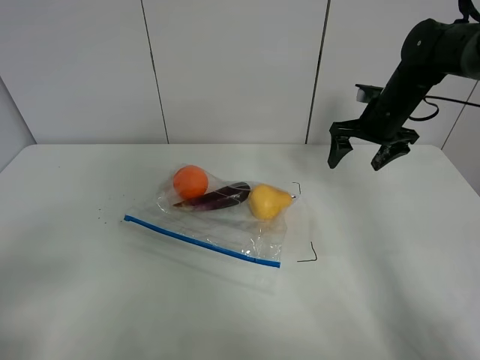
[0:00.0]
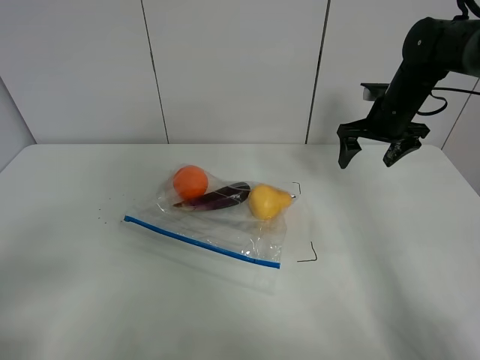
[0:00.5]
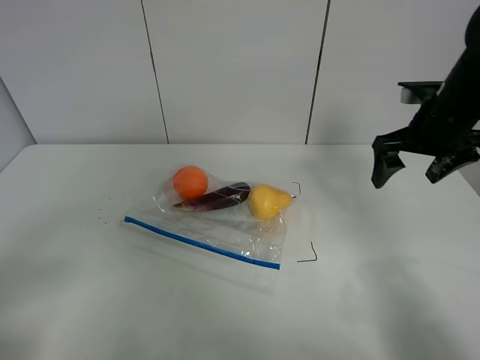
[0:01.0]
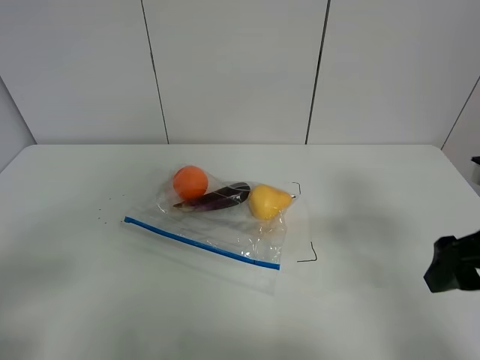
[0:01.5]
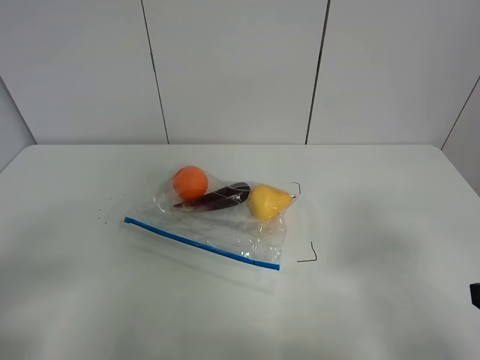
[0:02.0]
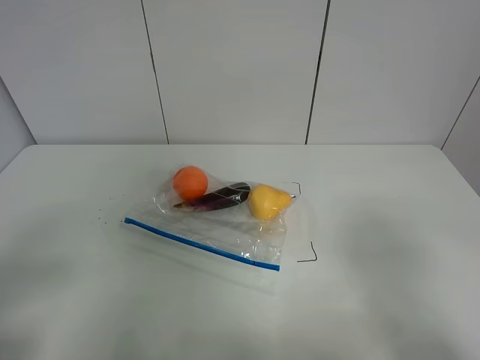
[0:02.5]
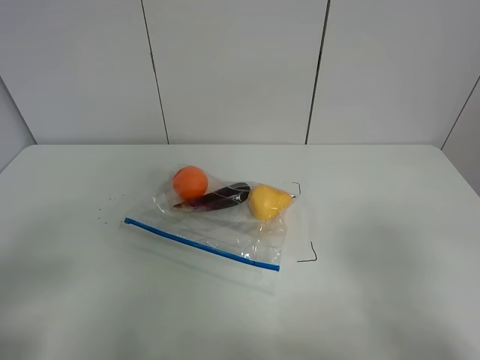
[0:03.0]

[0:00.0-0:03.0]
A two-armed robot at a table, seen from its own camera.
0:00.0 to 0:01.5: The right gripper travels backward by approximately 30 cm.
0:01.5 to 0:03.0: The right gripper is displaced backward by some 15 cm.

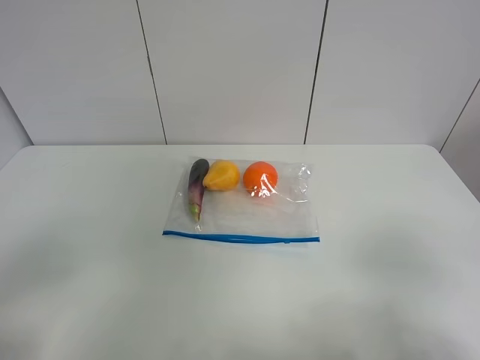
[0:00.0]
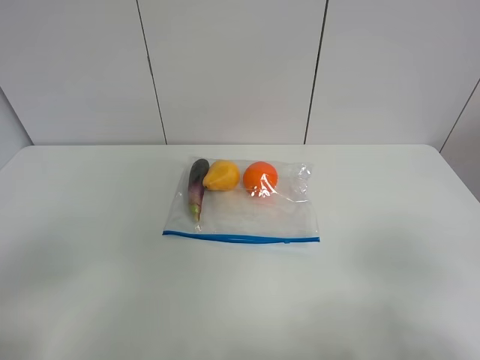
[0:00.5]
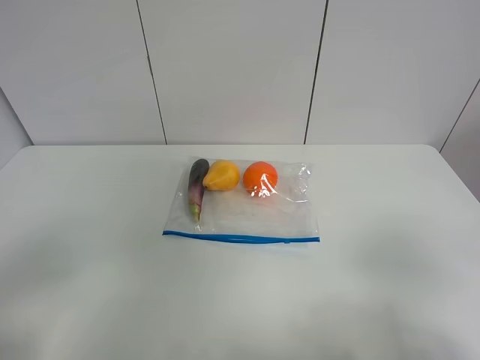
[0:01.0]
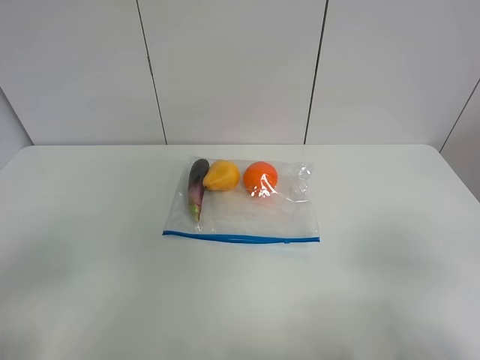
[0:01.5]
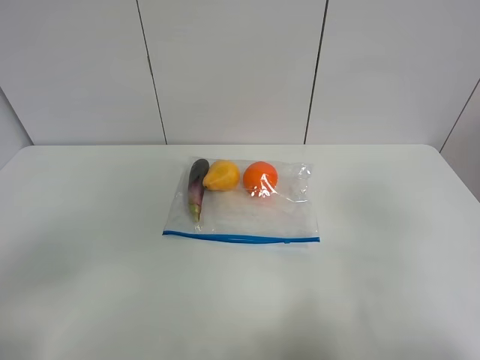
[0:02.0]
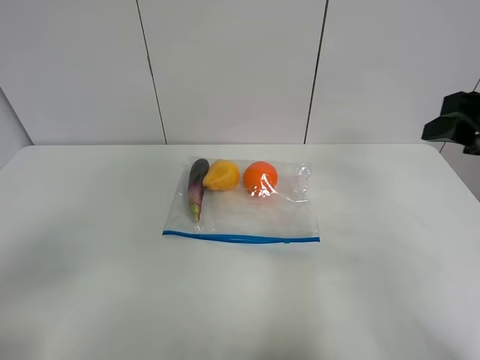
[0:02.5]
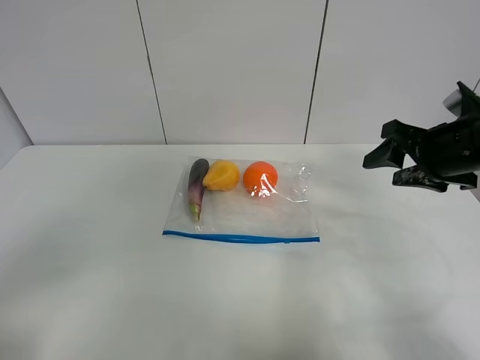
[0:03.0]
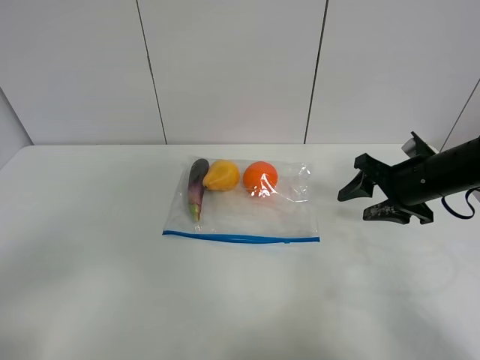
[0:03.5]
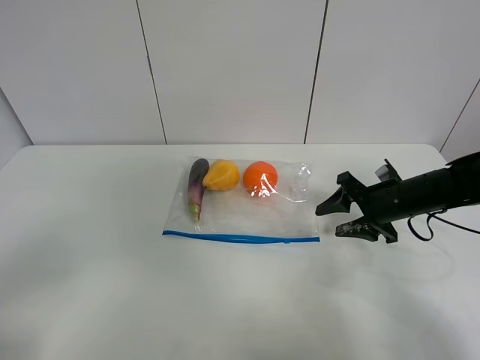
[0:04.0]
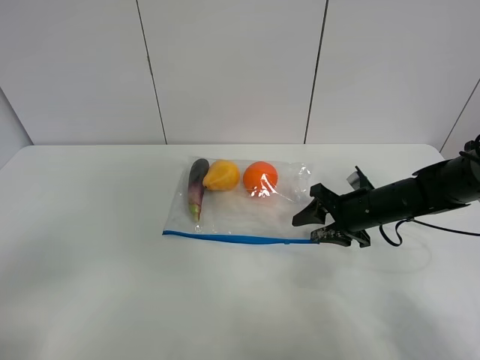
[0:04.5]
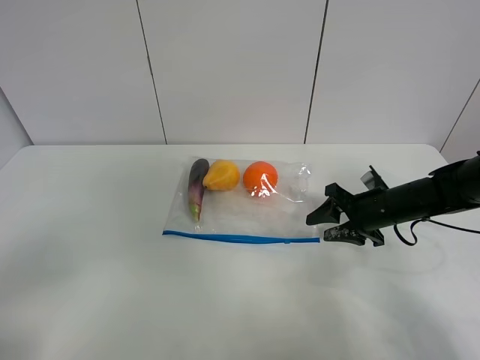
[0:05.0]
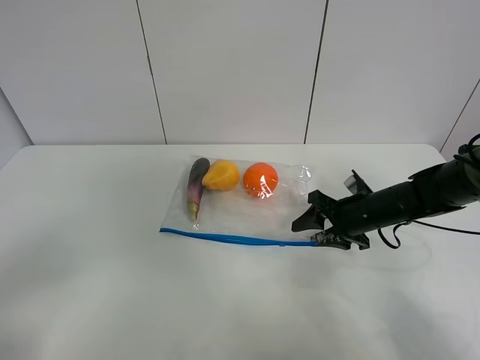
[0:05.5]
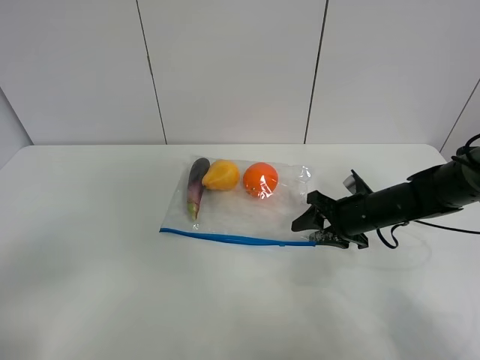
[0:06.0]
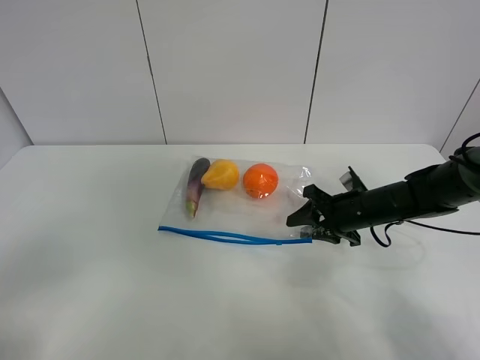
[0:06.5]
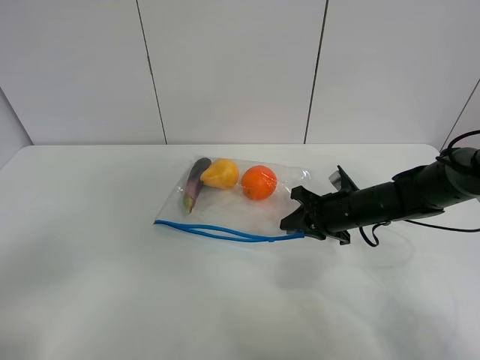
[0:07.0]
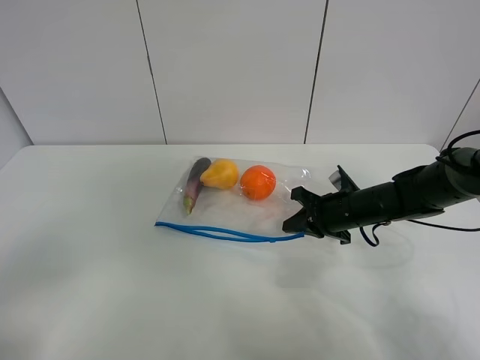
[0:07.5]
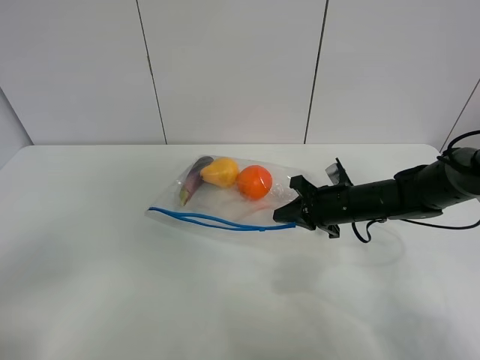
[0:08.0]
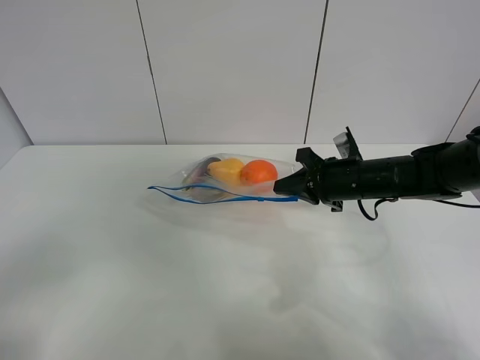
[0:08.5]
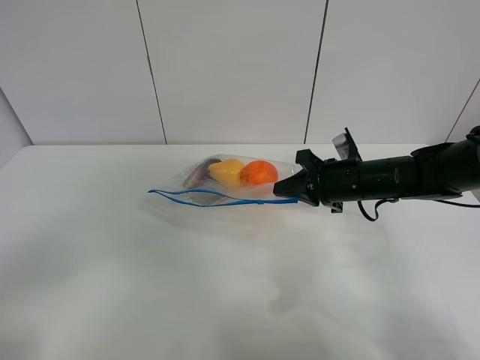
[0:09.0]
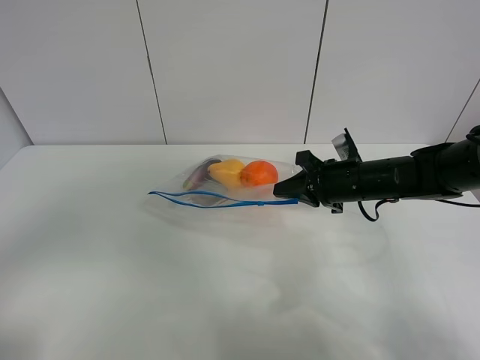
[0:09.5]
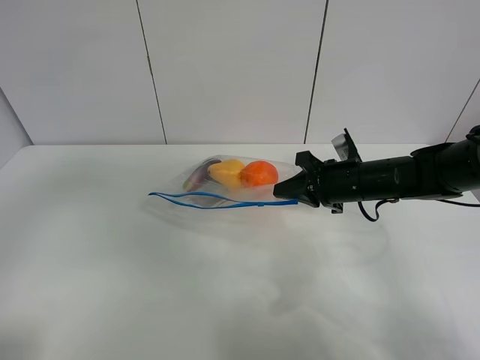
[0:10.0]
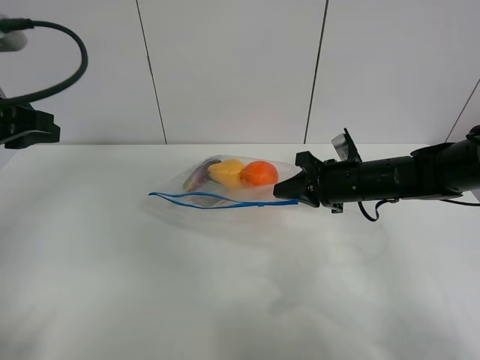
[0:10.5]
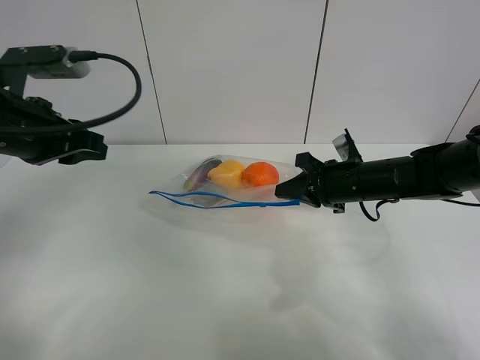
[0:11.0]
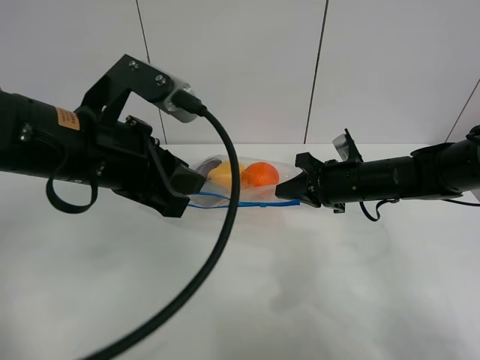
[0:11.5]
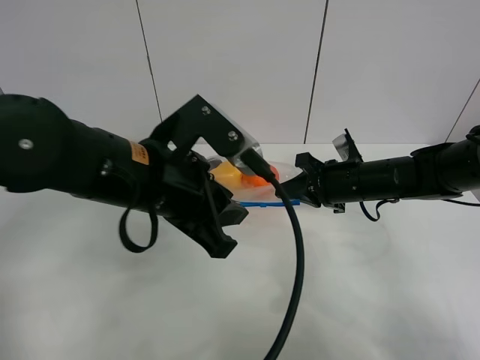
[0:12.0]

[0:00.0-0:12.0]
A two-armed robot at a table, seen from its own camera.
Step, 0:00.0 to 0:07.0: Grasp the fruit bag with right gripper.
Step, 0:07.5 to 0:08.5: Lift the fruit bag with your right gripper.
0:00.0 to 0:02.0: The right gripper goes roughly 10 cm forward and upward.
0:02.0 to 0:04.0: The right gripper moves forward and downward, about 35 cm.
0:04.0 to 0:06.0: The grippers stay close to where they were, moving slightly.
0:06.0 to 0:08.0: The right gripper closes up.
0:08.0 to 0:10.0: The right gripper is displaced upward by roughly 5 cm; the left gripper goes about 15 cm forward and upward.
0:10.0 to 0:12.0: The left gripper heads to the right, downward and forward, covering some 25 cm.

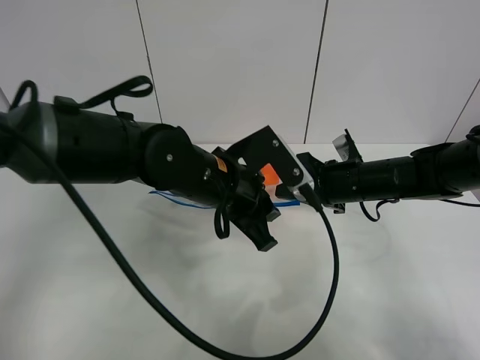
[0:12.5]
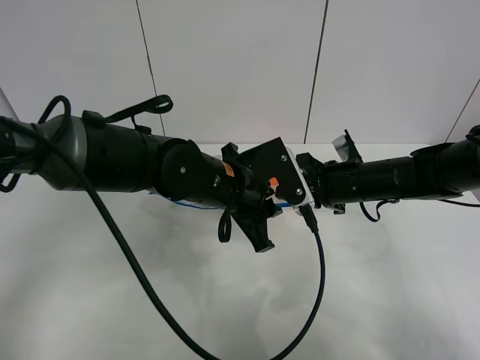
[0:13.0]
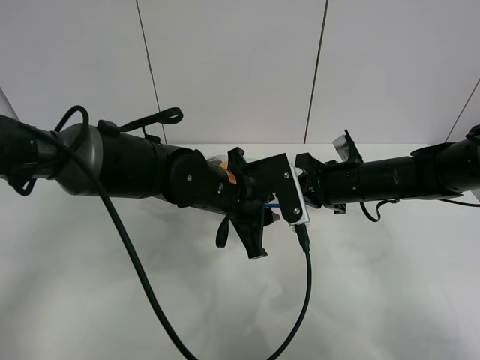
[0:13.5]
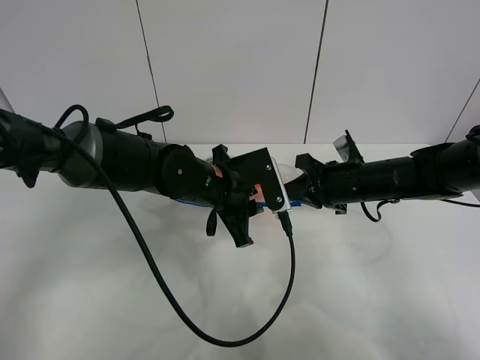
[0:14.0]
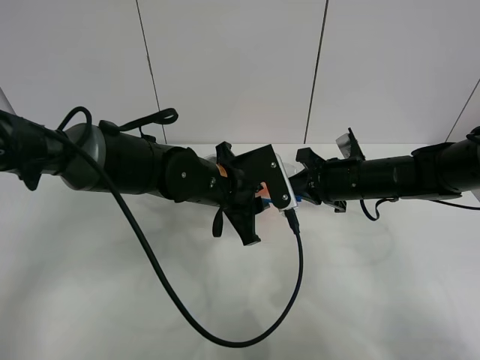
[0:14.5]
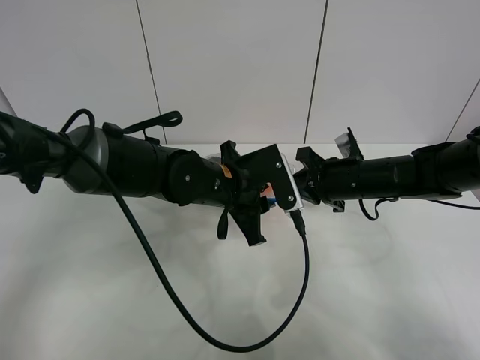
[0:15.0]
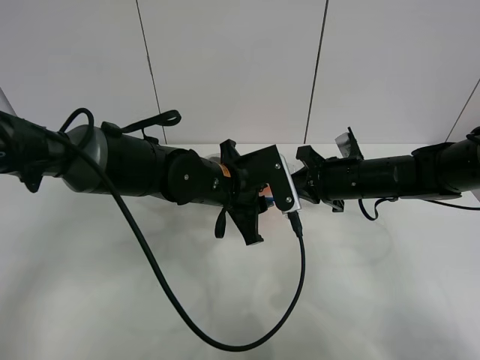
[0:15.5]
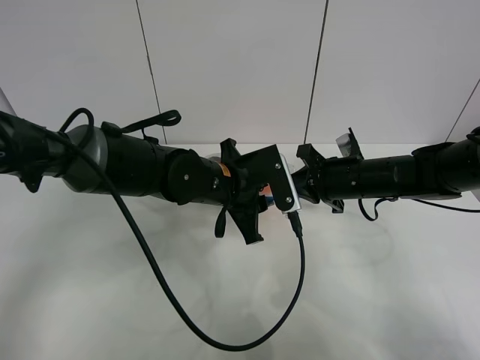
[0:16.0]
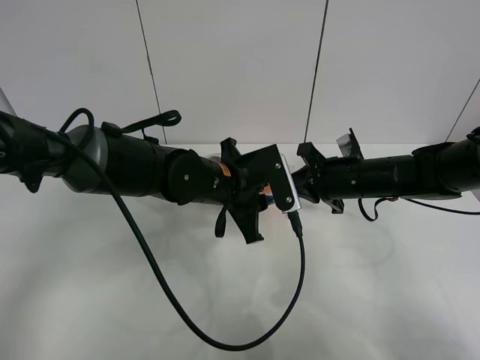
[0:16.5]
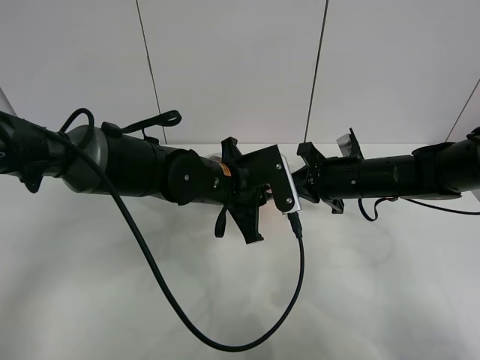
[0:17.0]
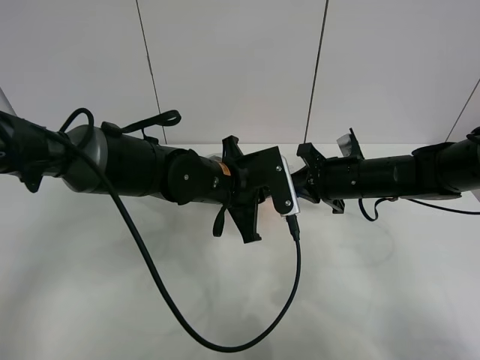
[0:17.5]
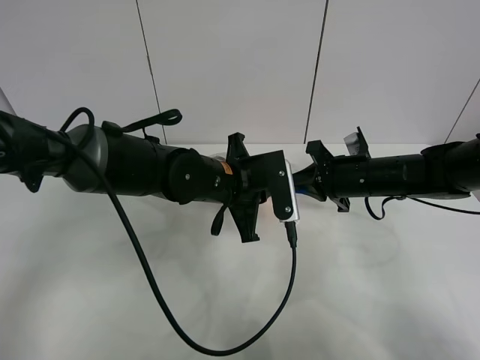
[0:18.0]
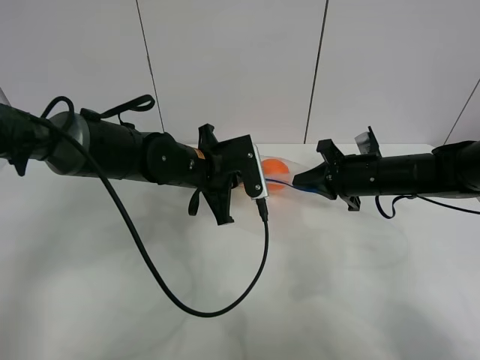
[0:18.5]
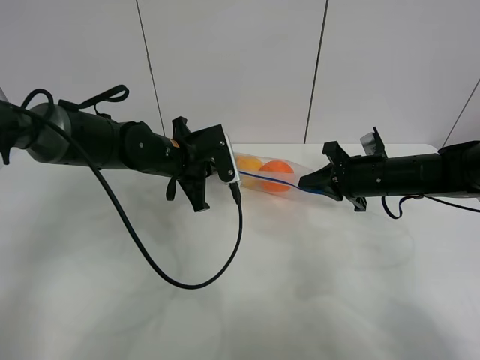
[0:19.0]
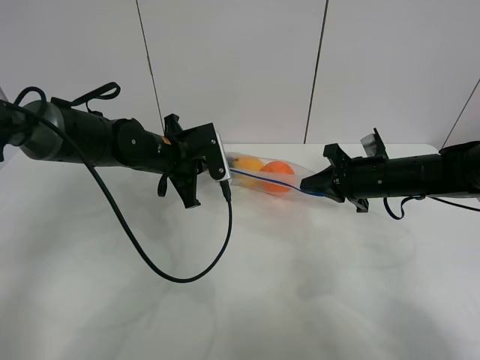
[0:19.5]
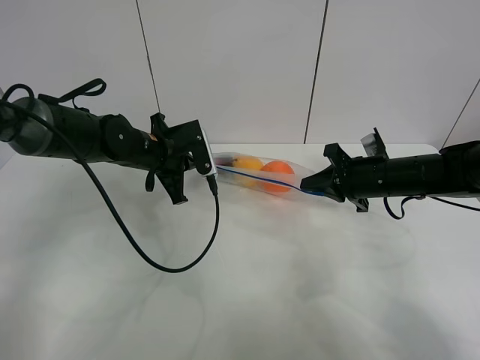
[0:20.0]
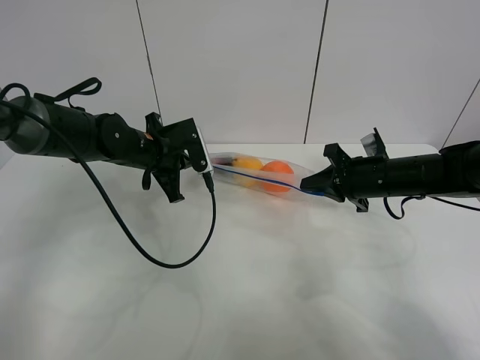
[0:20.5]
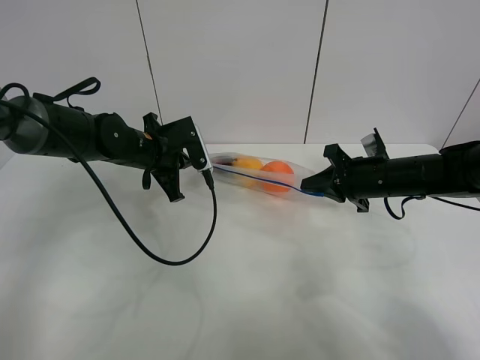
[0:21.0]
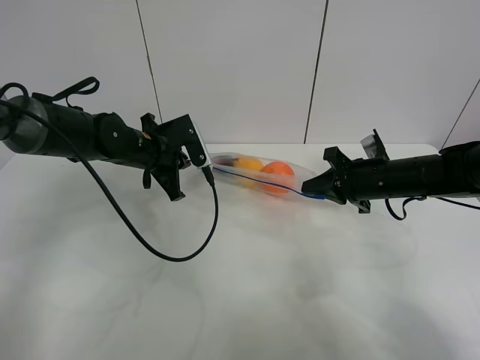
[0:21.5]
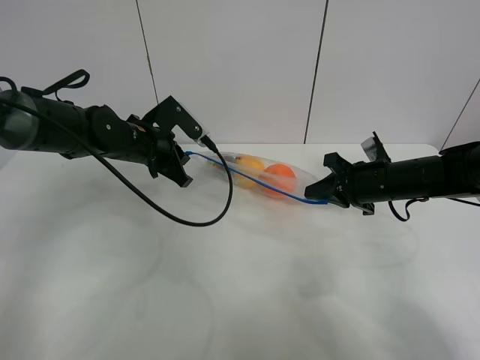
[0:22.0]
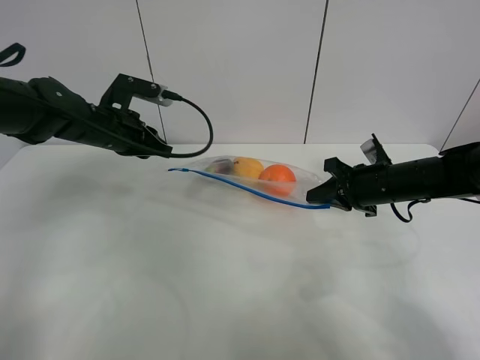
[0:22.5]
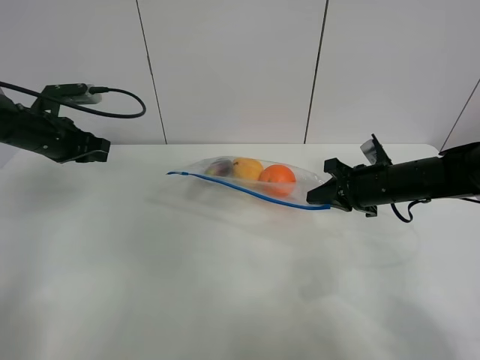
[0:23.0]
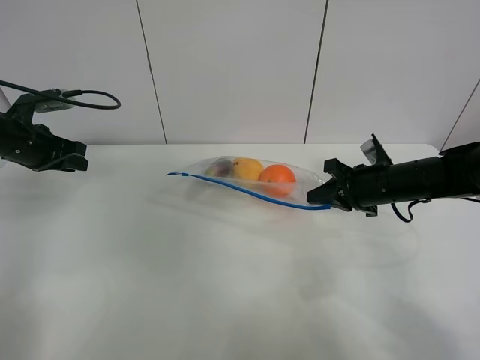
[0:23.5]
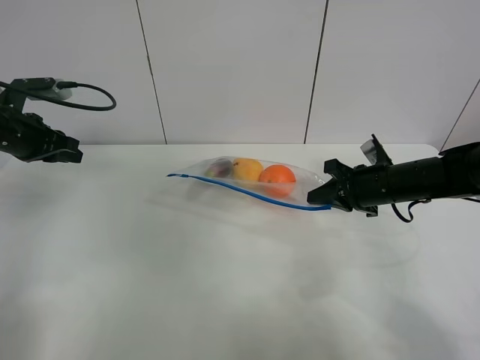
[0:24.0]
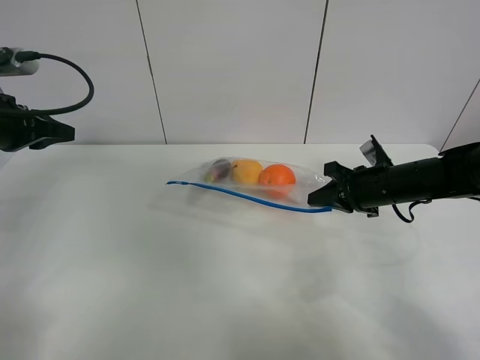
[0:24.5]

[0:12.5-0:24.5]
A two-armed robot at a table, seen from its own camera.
Step, 0:12.5 to 0:22.5: Pull the fruit bag with left gripper.
0:12.5 to 0:14.5: The grippers make only small movements.
0:14.5 to 0:16.5: Both grippers stay put.
0:16.5 to 0:18.5: The left gripper moves approximately 5 cm, and closes.
0:18.5 to 0:20.5: The left gripper goes approximately 10 cm to the left.
0:20.5 to 0:22.5: The left gripper goes roughly 5 cm to the left, and opens its fingers.
0:22.5 to 0:24.5: The left gripper is displaced to the left, backward and upward by approximately 15 cm.
